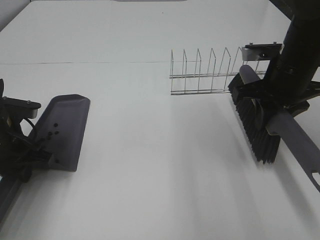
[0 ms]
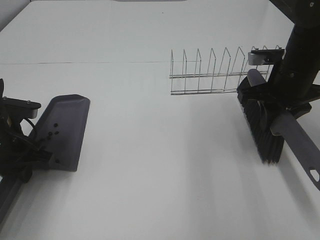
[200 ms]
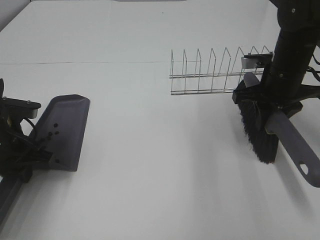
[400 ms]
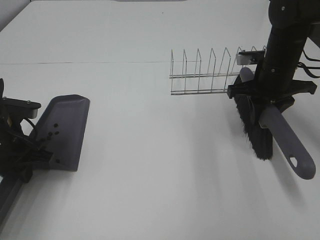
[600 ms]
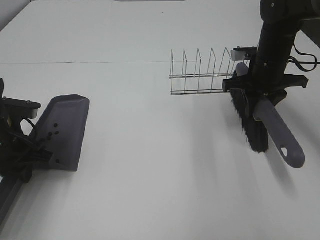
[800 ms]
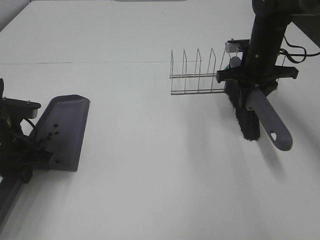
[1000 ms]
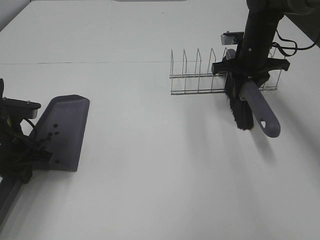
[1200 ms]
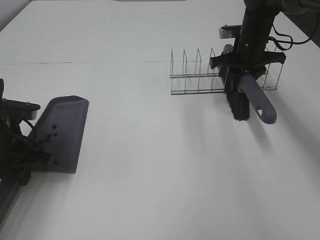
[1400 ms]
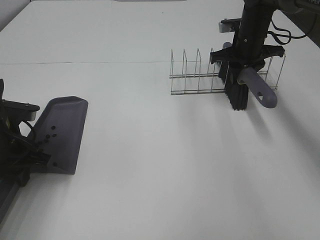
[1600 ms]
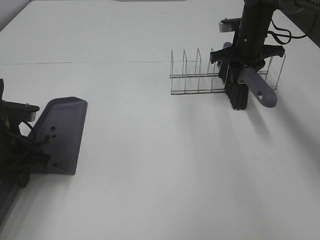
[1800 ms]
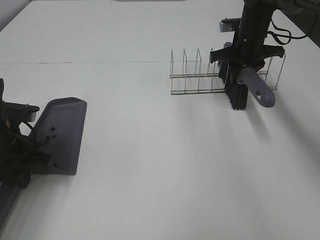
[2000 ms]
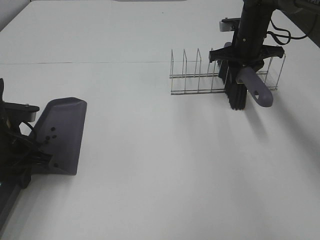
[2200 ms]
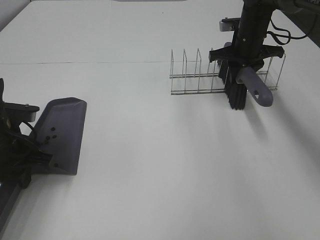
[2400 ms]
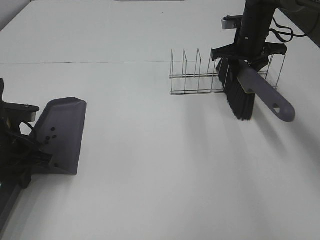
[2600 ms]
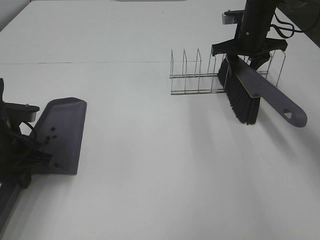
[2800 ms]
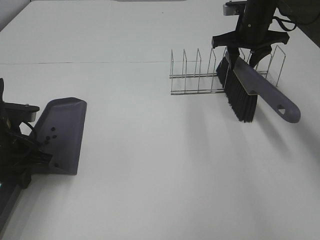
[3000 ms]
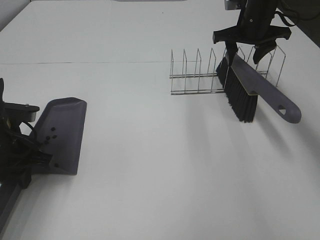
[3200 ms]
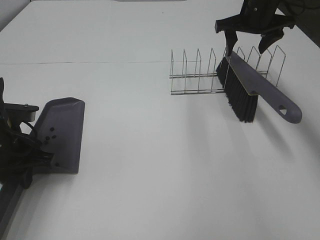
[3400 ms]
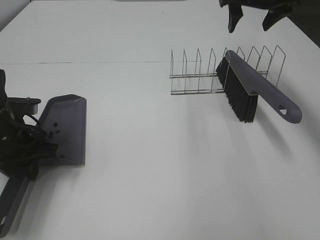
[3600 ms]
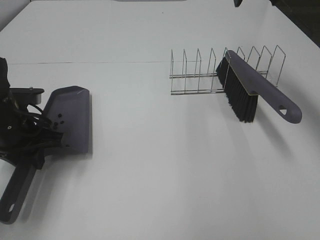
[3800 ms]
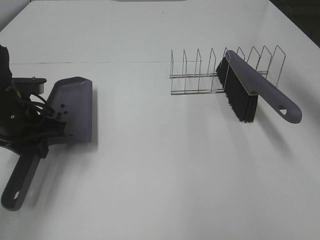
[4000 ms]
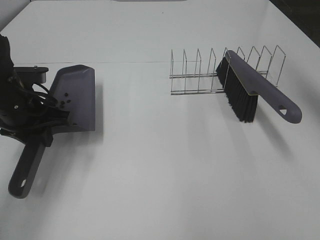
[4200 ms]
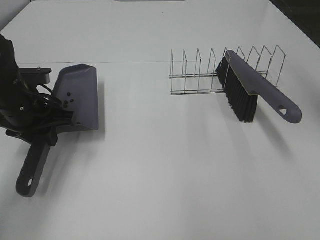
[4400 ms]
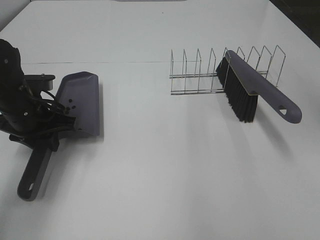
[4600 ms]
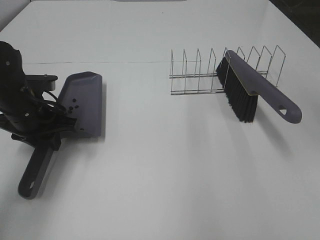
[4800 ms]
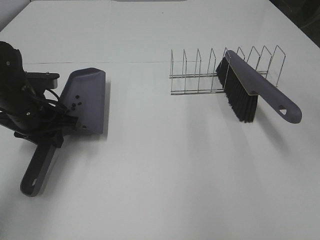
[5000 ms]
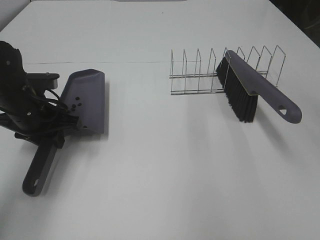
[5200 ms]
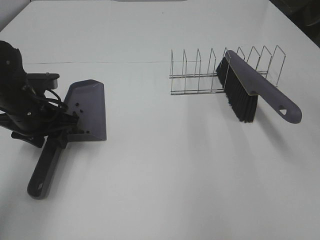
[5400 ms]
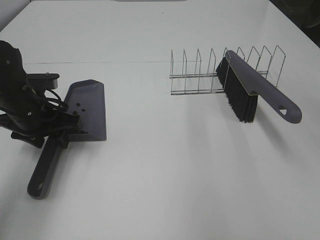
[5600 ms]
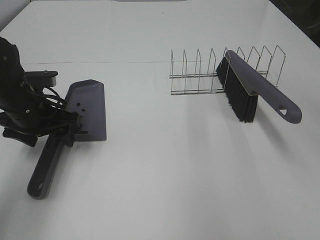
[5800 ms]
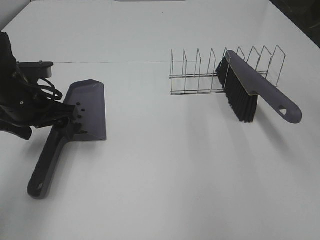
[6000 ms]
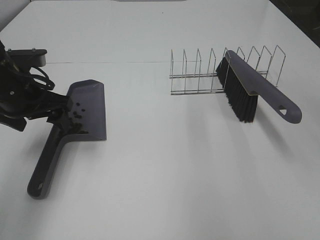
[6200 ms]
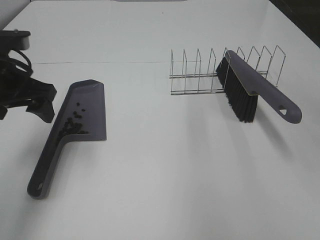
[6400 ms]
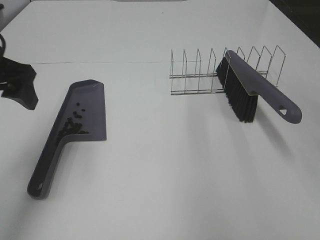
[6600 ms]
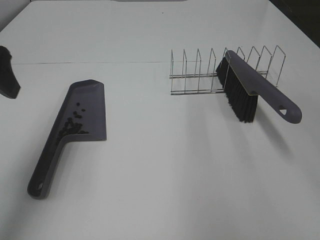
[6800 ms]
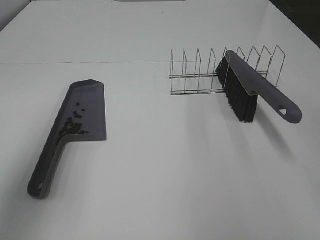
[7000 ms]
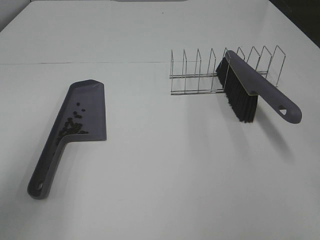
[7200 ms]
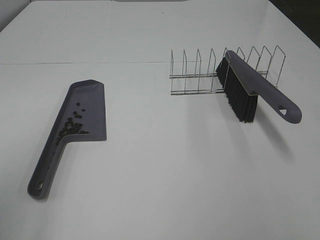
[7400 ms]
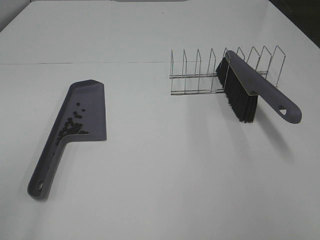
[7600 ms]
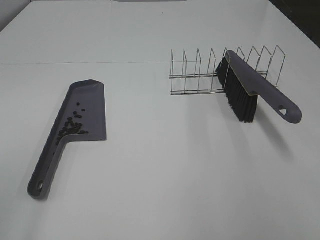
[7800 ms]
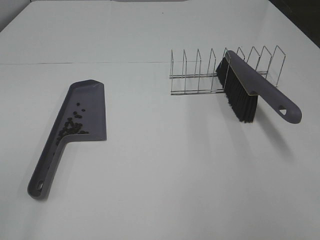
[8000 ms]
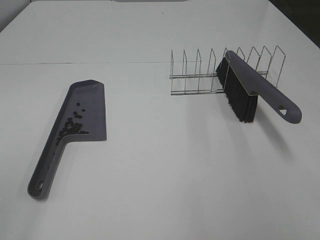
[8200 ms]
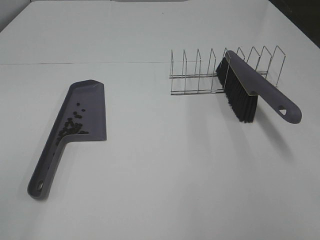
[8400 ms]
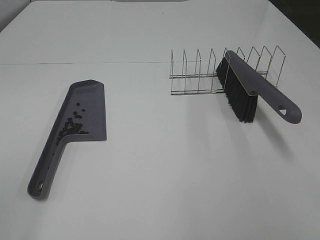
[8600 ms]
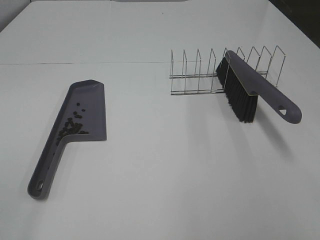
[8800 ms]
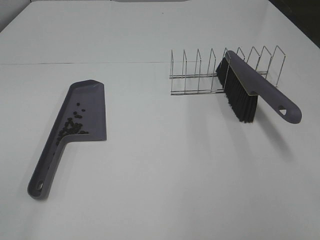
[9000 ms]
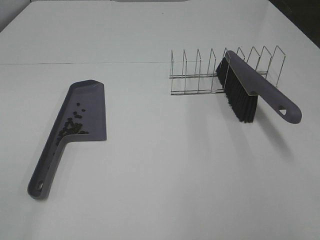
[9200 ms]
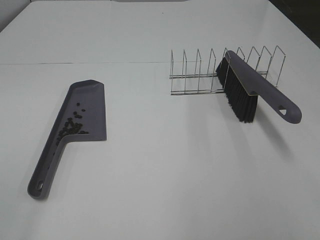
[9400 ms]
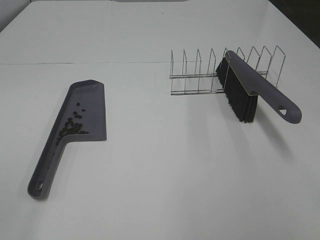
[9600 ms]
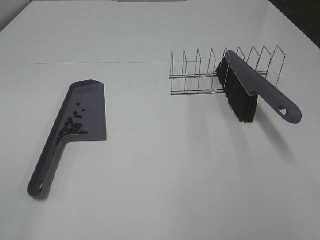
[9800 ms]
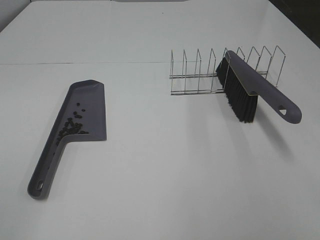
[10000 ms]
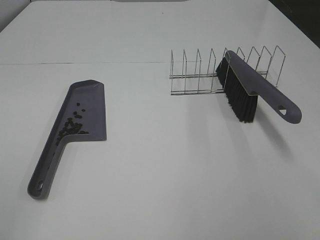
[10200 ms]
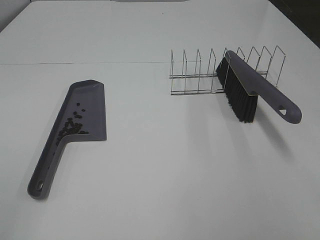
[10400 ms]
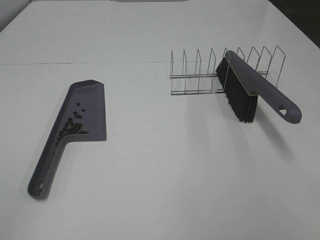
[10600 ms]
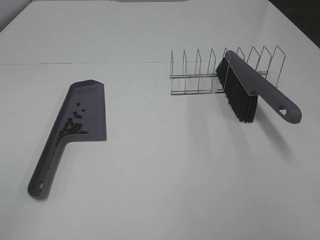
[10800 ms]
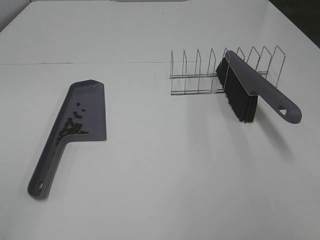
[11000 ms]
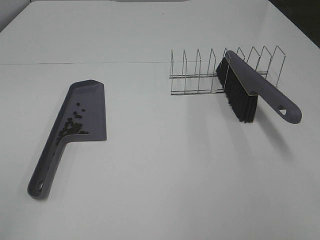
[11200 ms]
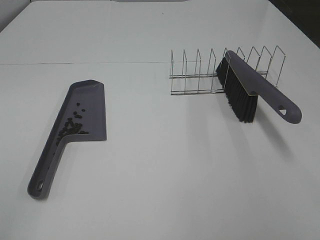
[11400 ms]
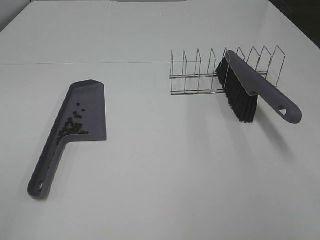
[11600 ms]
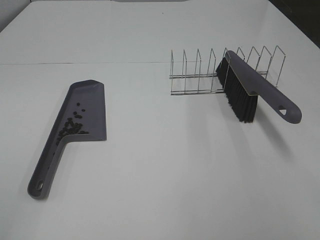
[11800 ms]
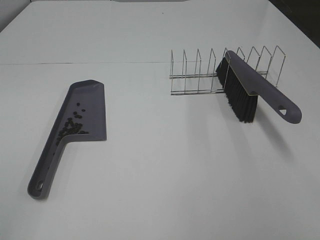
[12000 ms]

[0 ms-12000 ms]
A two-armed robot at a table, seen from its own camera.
Task of the whole recording: Sweep Coffee Bean.
Step, 0 ms to 2800 ms: Right hand:place the broom on the rack.
Step, 3000 ms to 6000 ms: Left hand:place the dustpan on the table.
0 ms to 1600 ms: The right gripper travels forward by roughly 15 cm.
1600 ms to 3000 ms: The grippers make only small movements.
3000 ms to 4400 ms: The right gripper is displaced upward and backward by some 30 cm, and opens its fingers. The left gripper shifts about 5 cm forward.
4400 ms to 6000 ms: The left gripper opens its fingers.
6000 ms to 7600 ms: The left gripper shifts roughly 30 cm backward and upward.
10400 ms to 12000 ms: The two grippers keep their place.

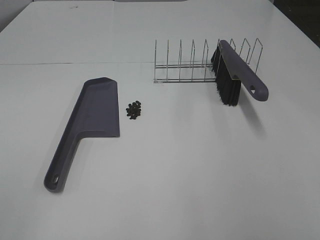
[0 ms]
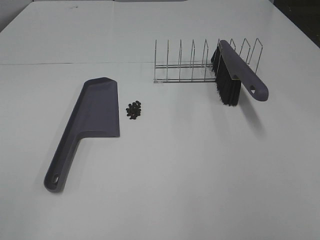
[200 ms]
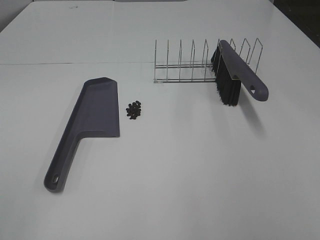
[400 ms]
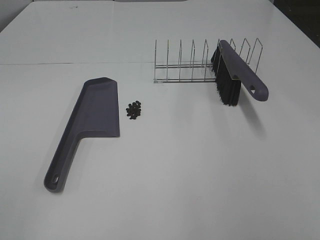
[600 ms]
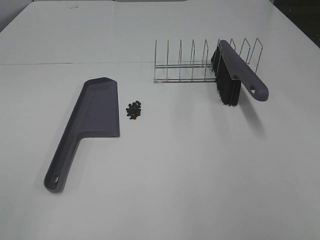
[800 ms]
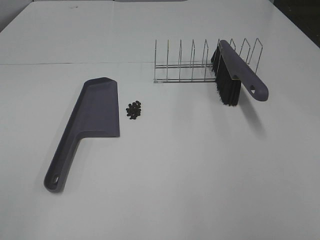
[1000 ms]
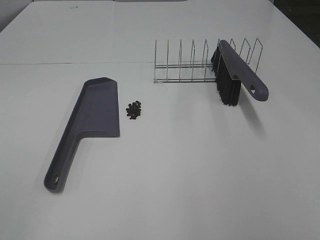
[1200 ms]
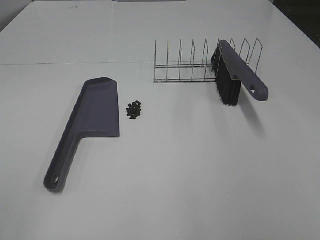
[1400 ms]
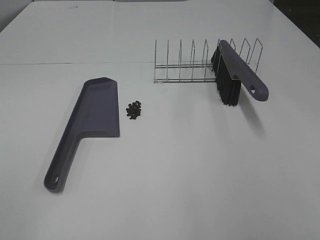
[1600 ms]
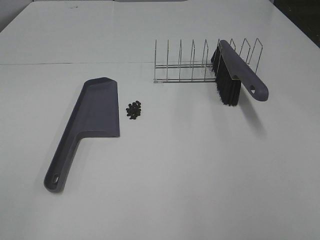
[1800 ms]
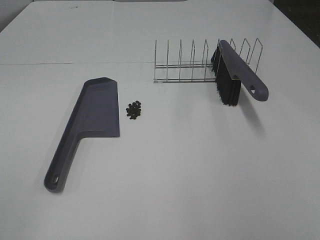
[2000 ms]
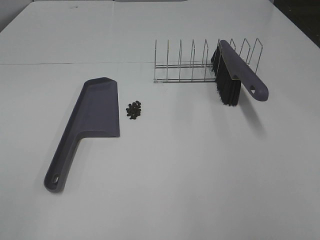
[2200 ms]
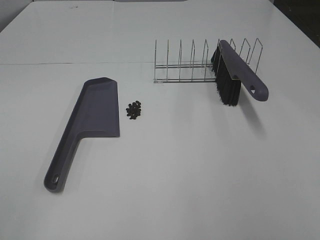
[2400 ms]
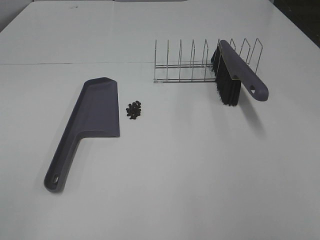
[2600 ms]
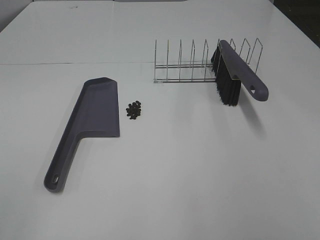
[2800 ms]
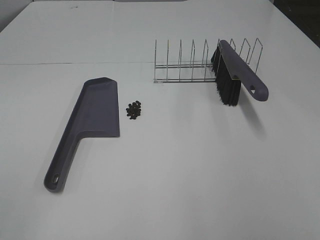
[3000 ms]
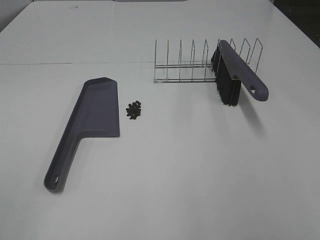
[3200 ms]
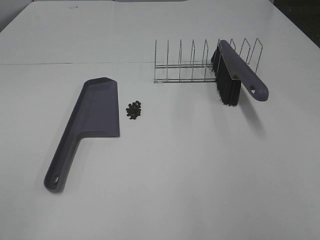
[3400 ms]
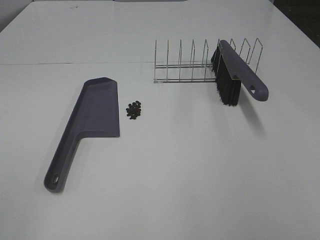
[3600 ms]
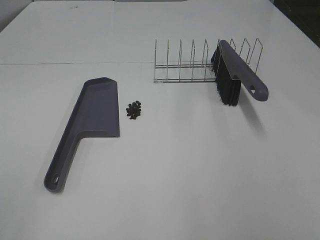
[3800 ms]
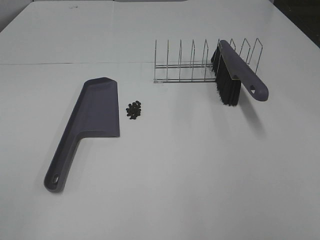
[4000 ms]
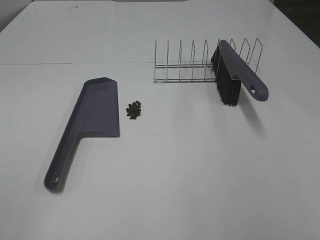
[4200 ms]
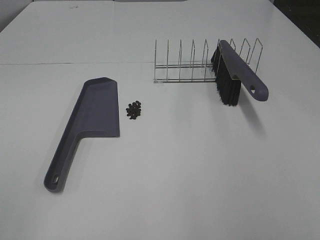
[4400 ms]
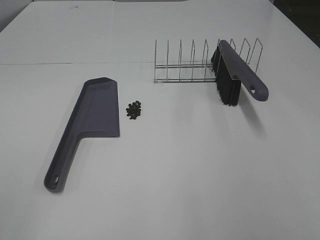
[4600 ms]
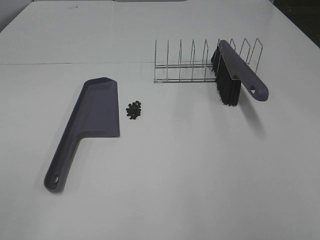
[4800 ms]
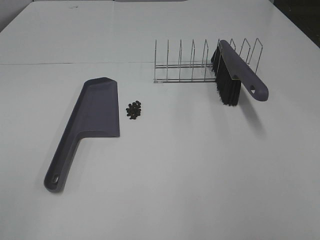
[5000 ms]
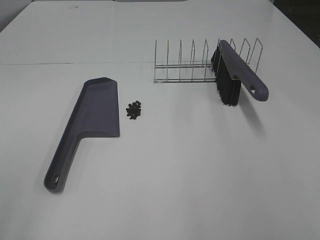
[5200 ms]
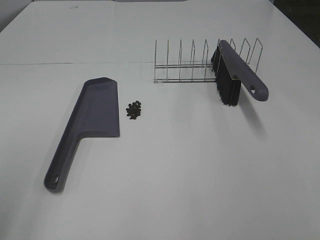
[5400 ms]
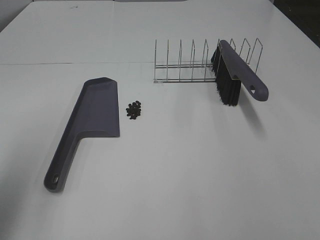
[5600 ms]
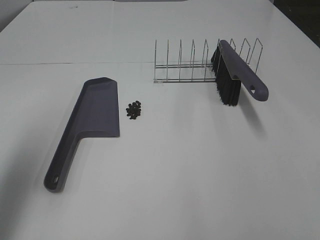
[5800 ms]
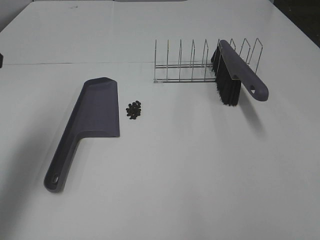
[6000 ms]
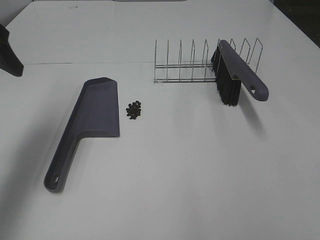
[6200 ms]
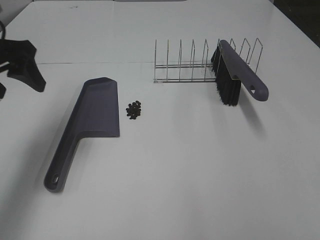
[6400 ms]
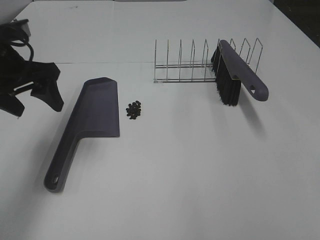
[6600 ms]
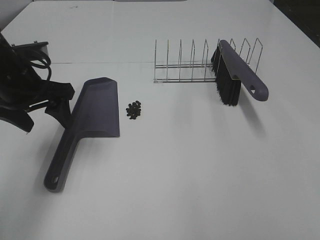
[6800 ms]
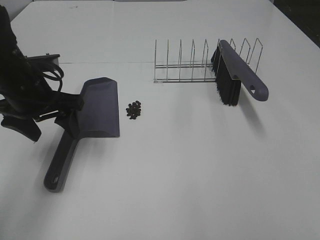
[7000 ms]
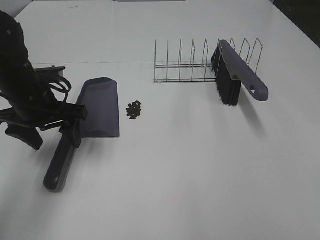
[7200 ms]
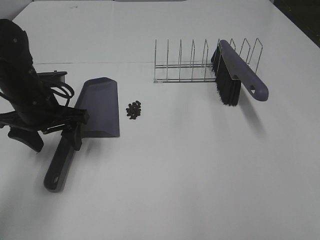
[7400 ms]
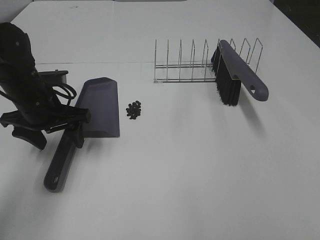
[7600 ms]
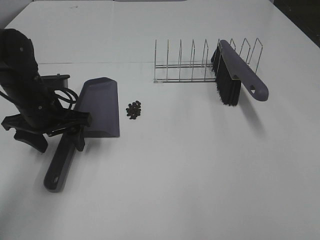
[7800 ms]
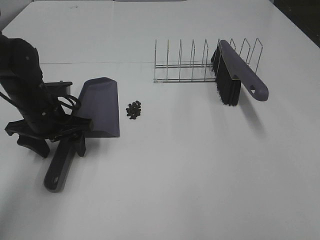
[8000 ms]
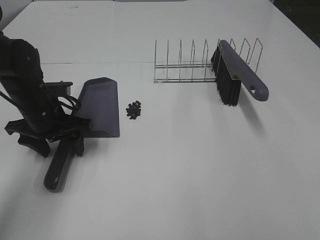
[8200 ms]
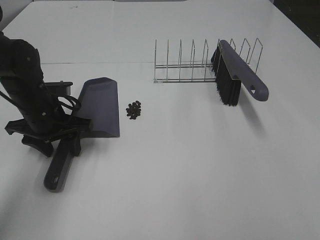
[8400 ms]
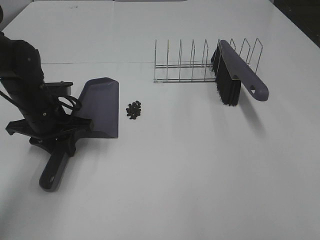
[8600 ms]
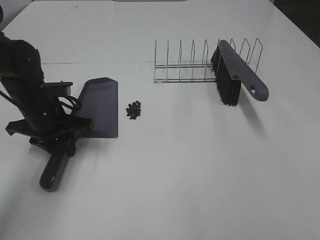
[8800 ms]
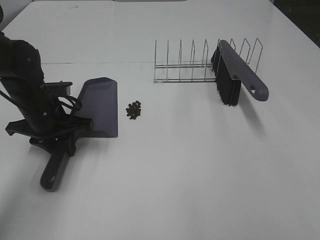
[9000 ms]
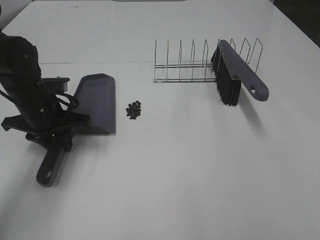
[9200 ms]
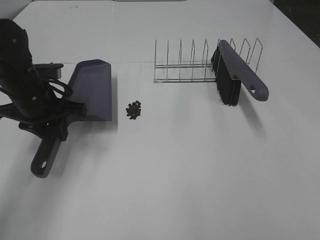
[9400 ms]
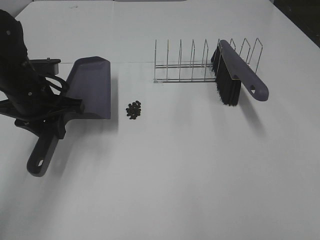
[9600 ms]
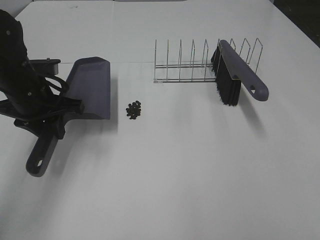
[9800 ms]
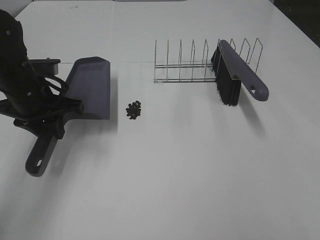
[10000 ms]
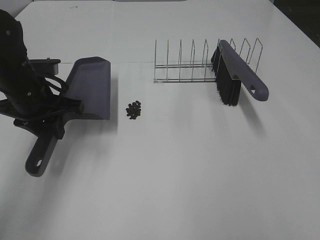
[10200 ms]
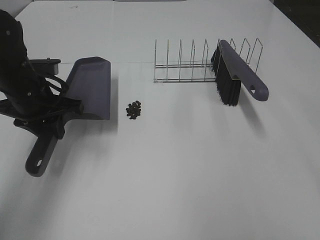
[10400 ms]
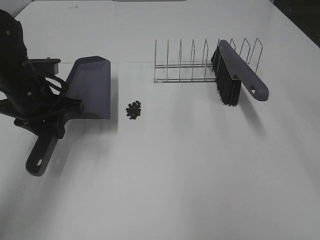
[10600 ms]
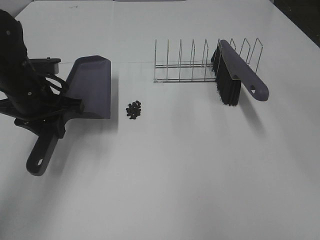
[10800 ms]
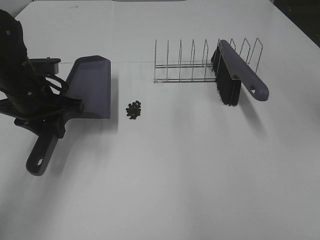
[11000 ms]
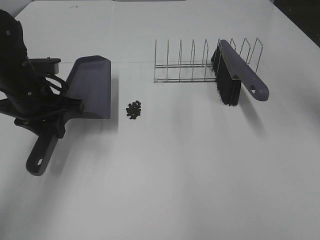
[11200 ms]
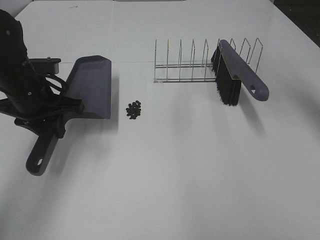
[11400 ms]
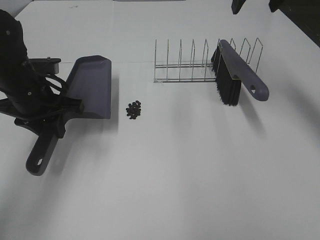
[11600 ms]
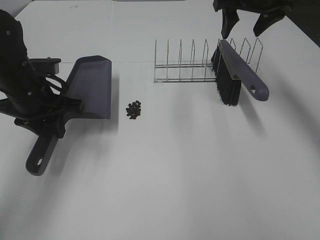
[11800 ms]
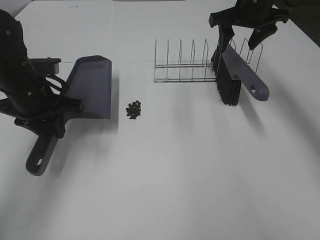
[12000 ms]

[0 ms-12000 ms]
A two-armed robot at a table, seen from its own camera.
Task of the whole recording: Sweep Coffee Bean.
Step, 0 ms to 8400 ms: Left hand: grab the dustpan.
0 ms to 4400 ms: Neither gripper changes place.
4400 ms to 6000 ms: The left gripper moves forward, some 25 cm.
6000 ms to 7600 ms: The left gripper heads downward, to the right and forward, covering about 20 cm.
7600 ms to 9000 ms: The left gripper closes its fingers.
9000 ms to 10400 ms: The right gripper shifts about 15 cm forward and upward. The left gripper goes some 5 cm upward.
10400 ms to 12000 ms: The right gripper shifts roughly 35 cm forward.
